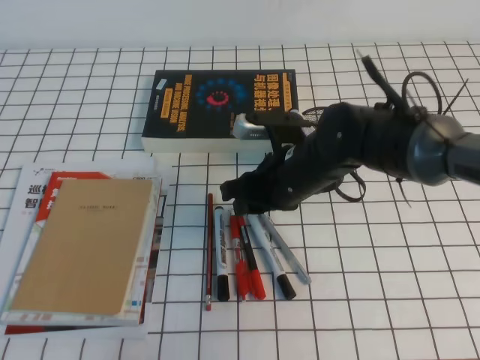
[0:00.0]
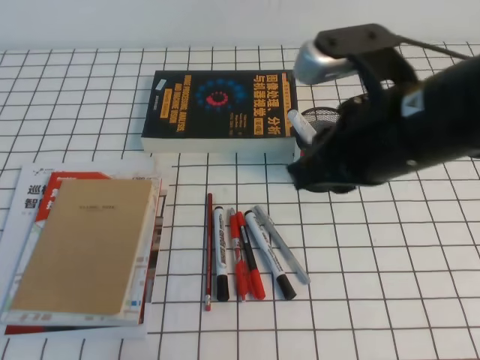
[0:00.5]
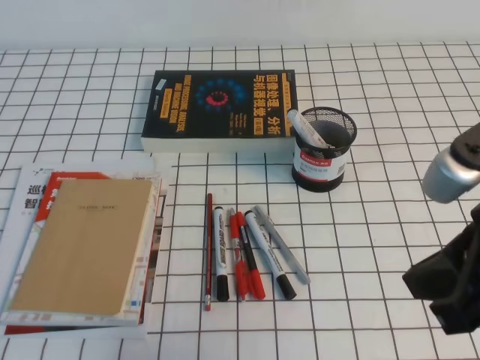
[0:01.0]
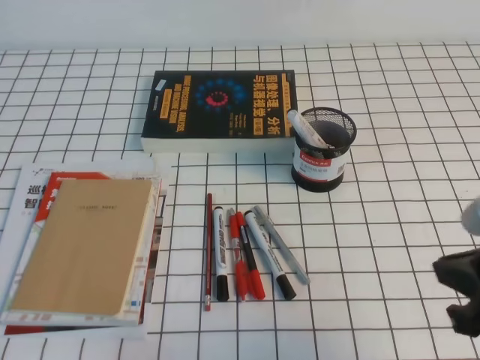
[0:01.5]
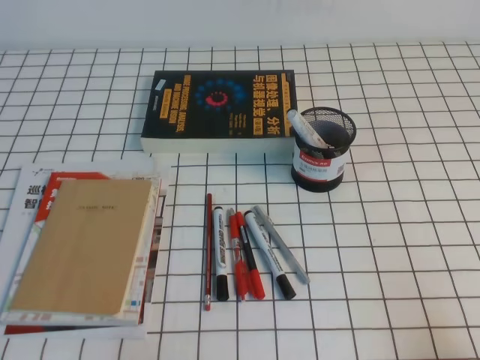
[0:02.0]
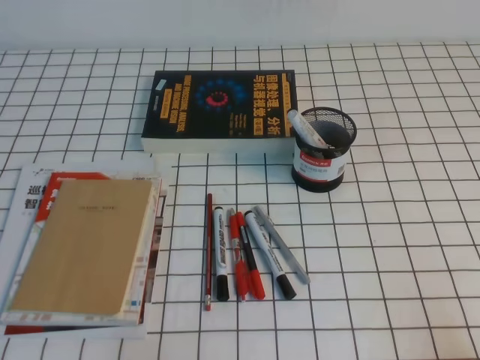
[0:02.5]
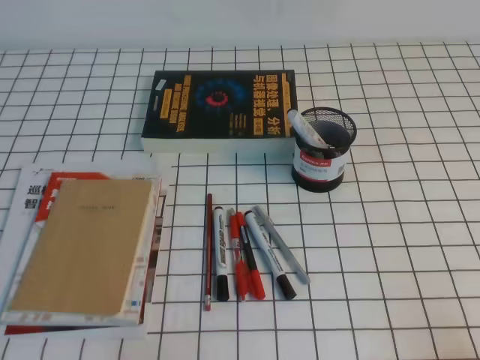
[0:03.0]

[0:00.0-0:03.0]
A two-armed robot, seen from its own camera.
Step, 0:00.0 to 0:03.0: Pick up the pen from the pen holder.
0:00.0 to 0:01.5: The right gripper goes some 30 cm backward, to the right and upward, and closes up.
0:01.5 to 0:03.0: The right gripper is displaced downward, backward and to the right by some 15 cm.
